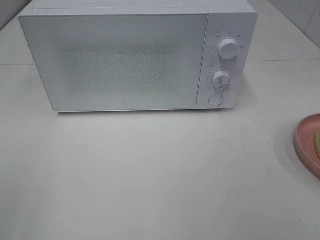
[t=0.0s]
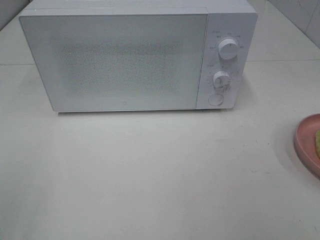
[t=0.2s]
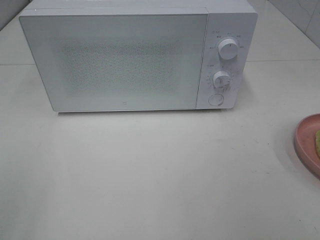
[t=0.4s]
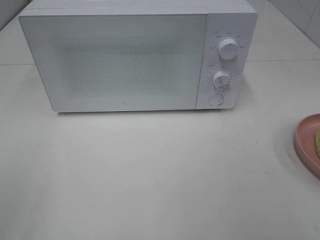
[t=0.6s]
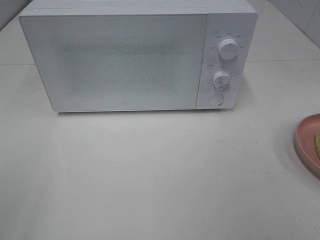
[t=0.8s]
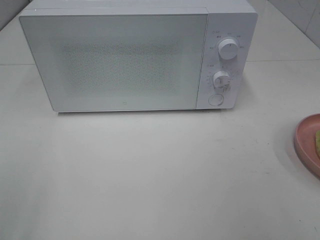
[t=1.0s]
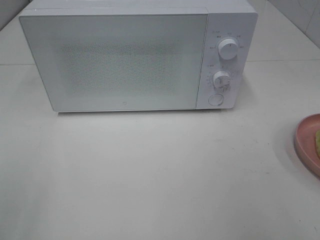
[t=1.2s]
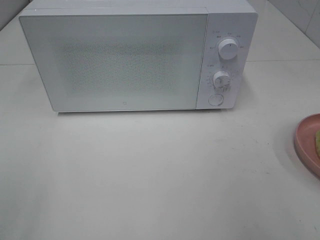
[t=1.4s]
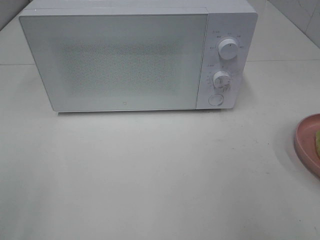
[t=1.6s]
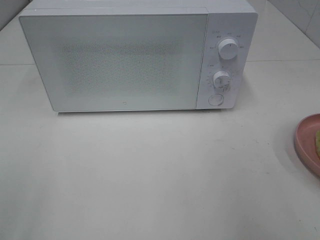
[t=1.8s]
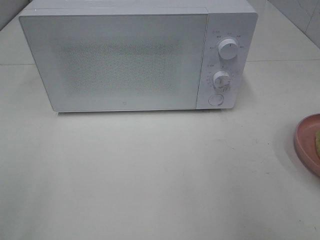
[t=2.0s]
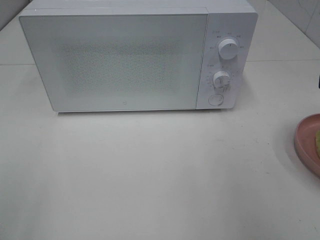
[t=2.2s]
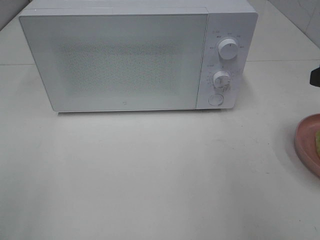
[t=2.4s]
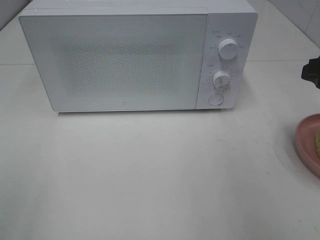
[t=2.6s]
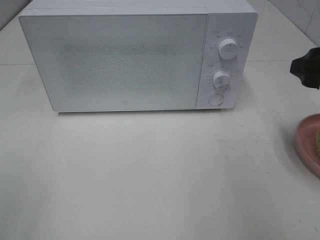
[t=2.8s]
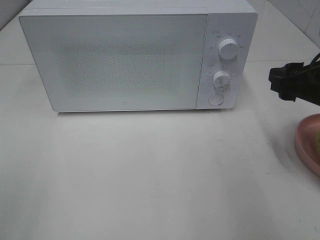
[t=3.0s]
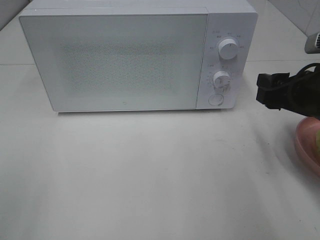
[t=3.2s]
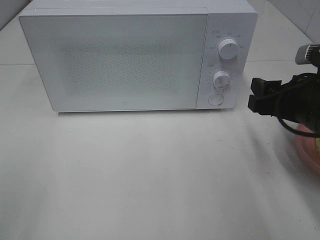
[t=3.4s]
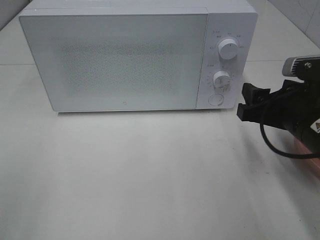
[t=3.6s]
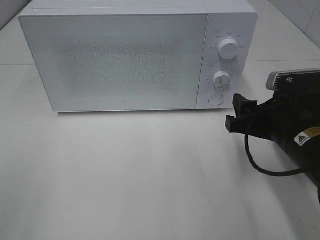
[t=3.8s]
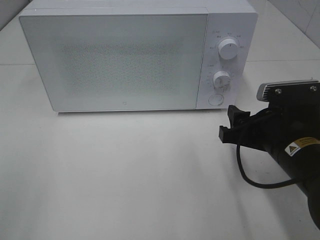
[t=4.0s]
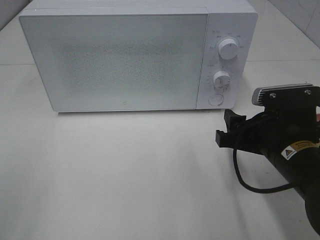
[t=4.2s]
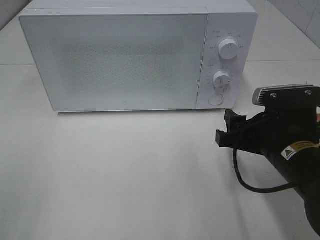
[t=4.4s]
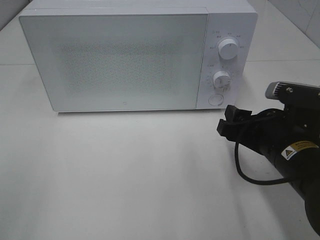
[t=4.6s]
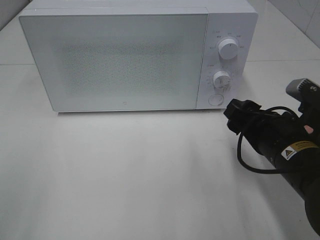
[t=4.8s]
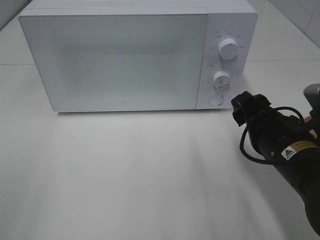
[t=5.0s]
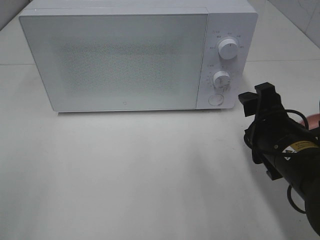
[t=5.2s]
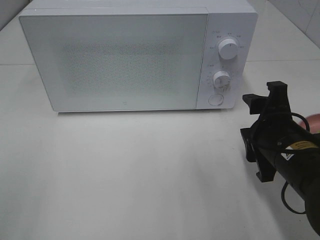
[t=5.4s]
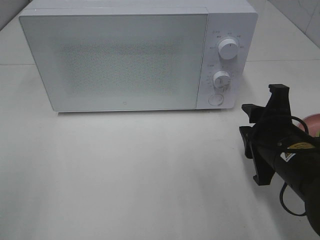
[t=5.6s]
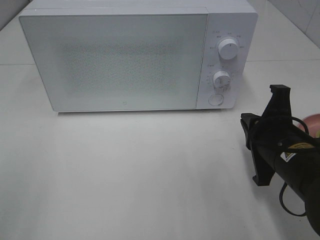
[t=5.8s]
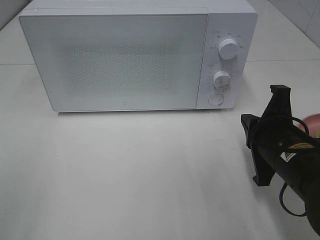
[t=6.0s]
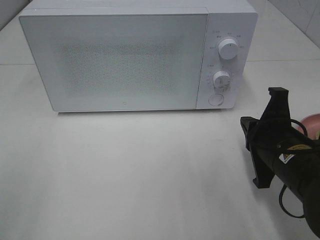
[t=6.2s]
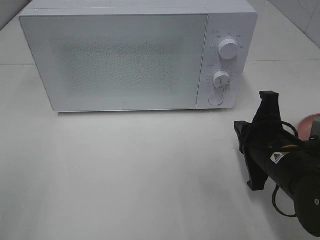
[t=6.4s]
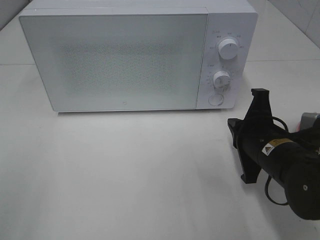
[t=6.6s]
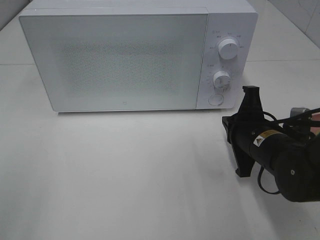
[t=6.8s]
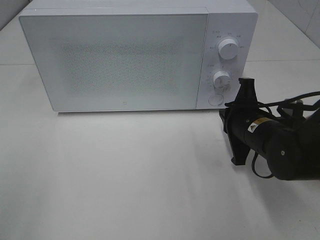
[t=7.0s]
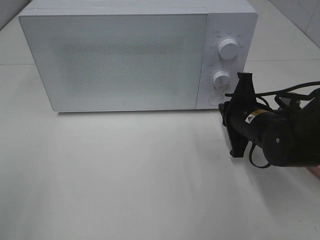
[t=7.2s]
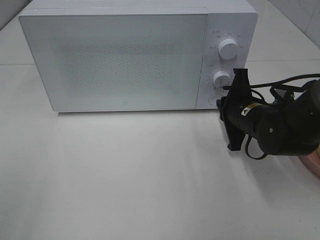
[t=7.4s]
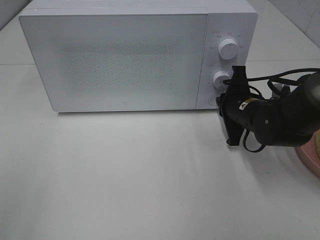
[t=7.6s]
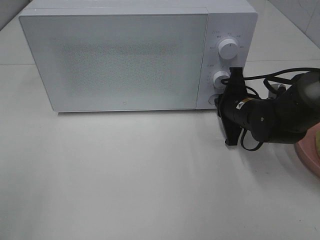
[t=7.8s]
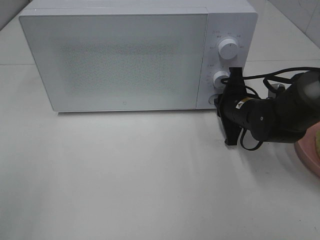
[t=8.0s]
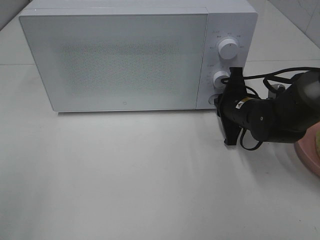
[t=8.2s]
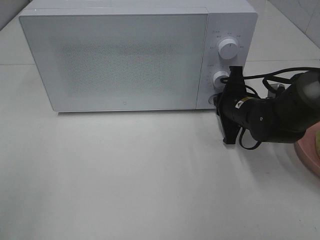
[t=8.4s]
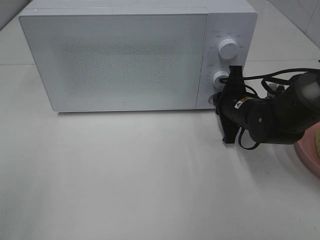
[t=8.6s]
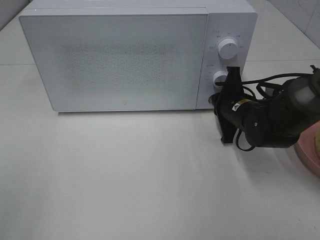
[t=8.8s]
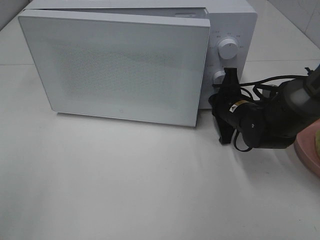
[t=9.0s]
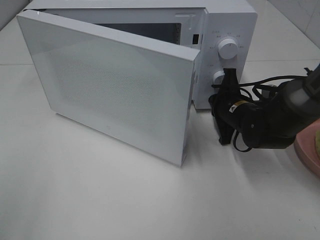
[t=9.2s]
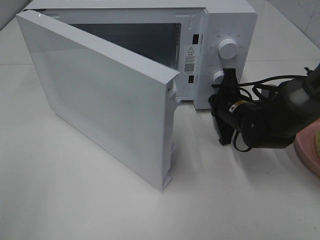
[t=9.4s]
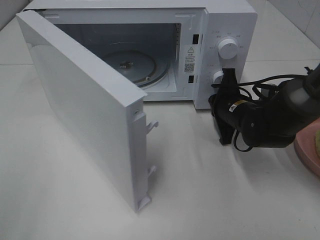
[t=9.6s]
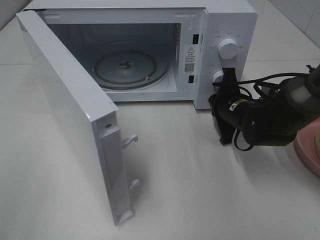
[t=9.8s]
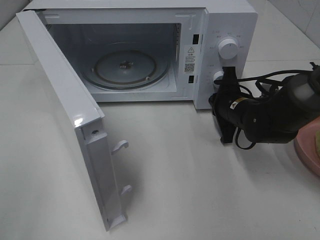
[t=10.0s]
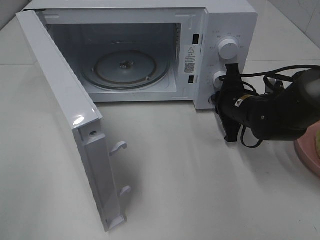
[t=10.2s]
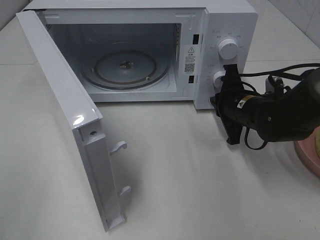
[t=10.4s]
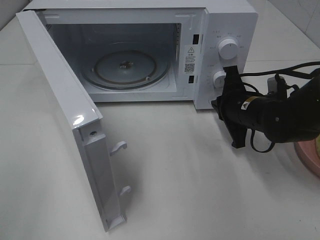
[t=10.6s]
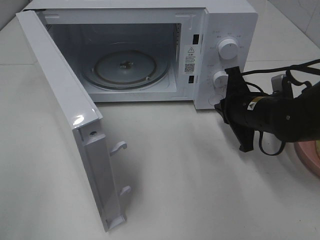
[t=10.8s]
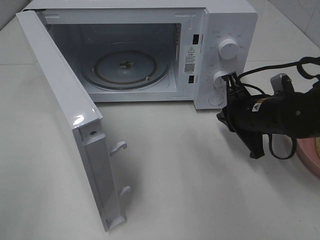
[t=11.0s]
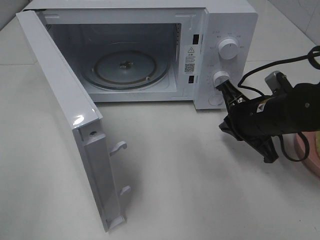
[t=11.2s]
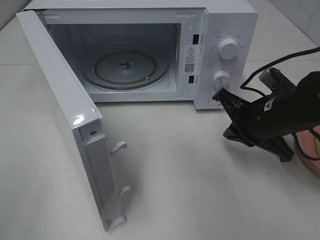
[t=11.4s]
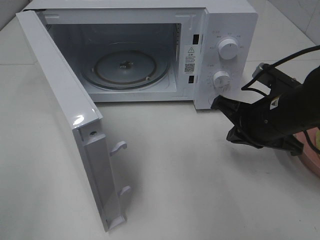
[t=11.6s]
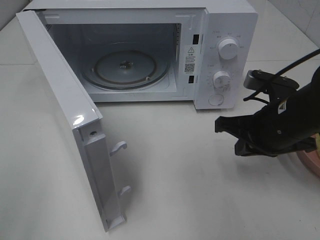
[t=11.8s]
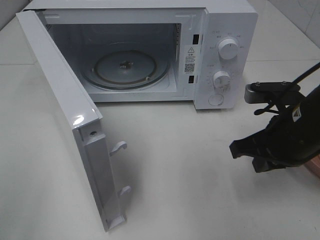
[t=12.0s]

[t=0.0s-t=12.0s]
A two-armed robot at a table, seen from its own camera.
Task of the whole recording: Heat Sandwich.
Step, t=0.0s to t=10.6s: Right hand: press the switch.
t=1.6s to t=3.0s: The right gripper is displaced forward and downward by about 15 cm.
t=3.0s to t=4.4s: The right gripper goes approximately 10 cm downward and to the left.
t=4.4s to t=6.0s: The right gripper closes.
t=6.0s to t=7.6s: The right gripper heads forward, covering some 15 cm.
t=7.6s to t=9.0s: The grippers stay close to where they were, moving slightly.
t=10.4s to t=12.0s: The right gripper is displaced backward and upward by approximately 10 cm.

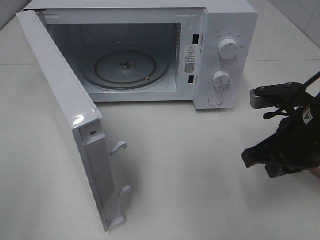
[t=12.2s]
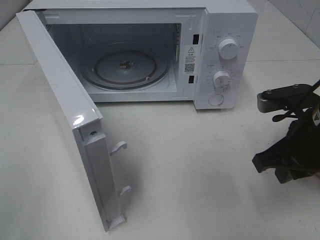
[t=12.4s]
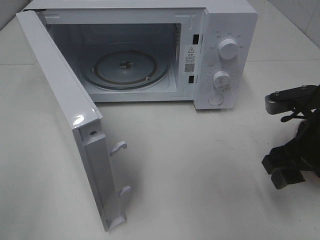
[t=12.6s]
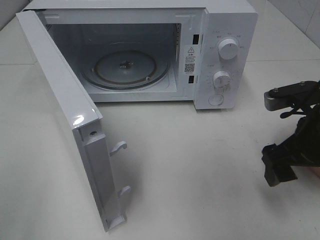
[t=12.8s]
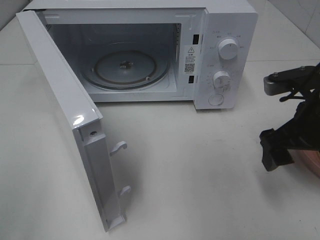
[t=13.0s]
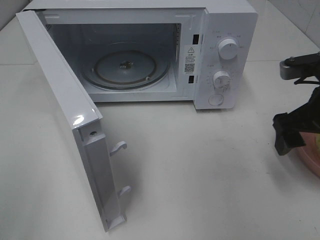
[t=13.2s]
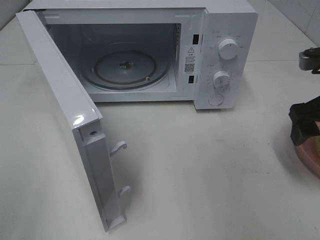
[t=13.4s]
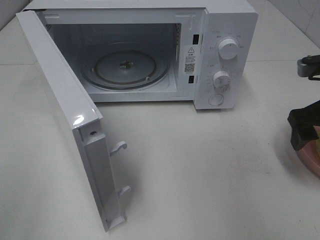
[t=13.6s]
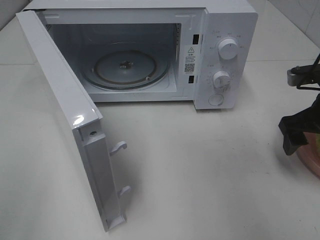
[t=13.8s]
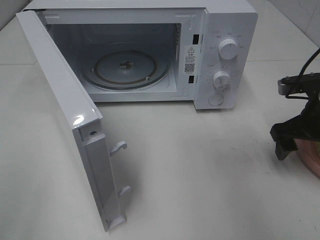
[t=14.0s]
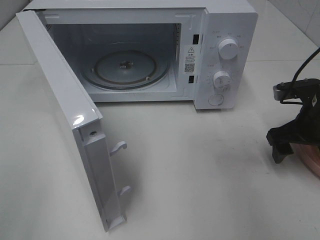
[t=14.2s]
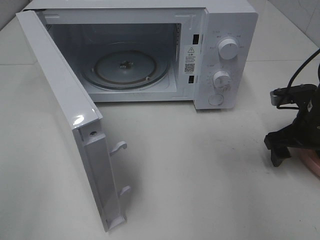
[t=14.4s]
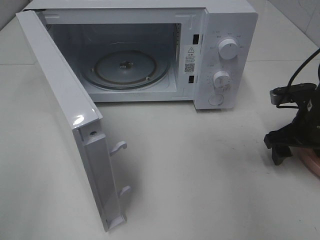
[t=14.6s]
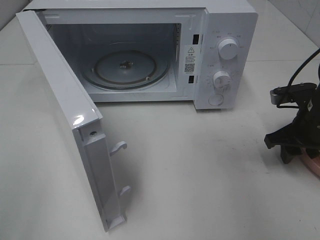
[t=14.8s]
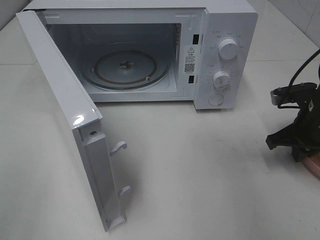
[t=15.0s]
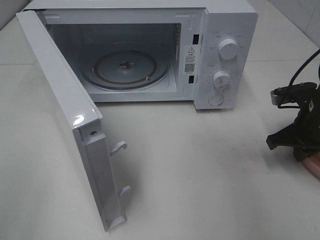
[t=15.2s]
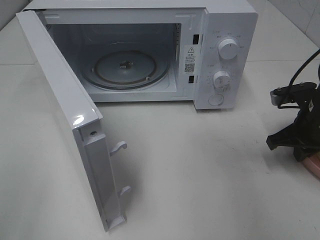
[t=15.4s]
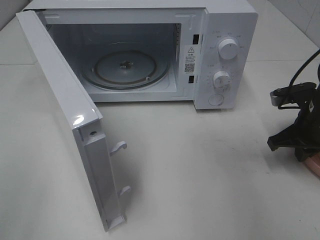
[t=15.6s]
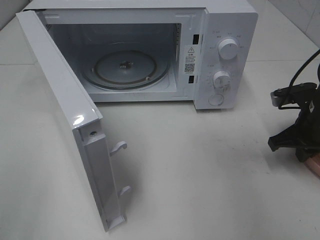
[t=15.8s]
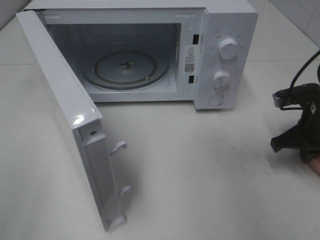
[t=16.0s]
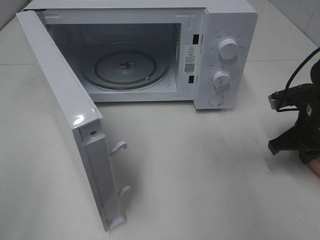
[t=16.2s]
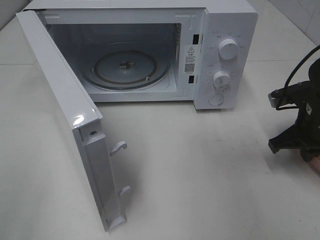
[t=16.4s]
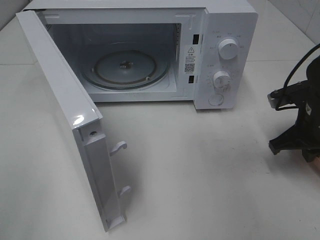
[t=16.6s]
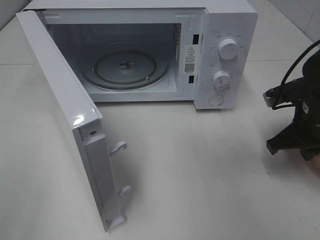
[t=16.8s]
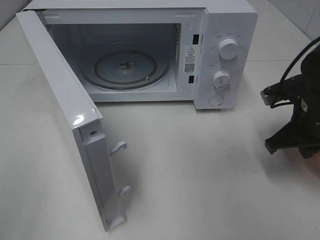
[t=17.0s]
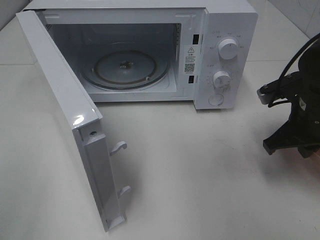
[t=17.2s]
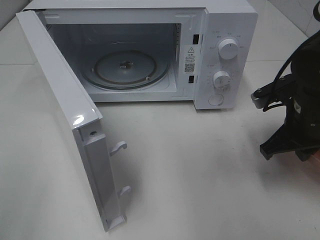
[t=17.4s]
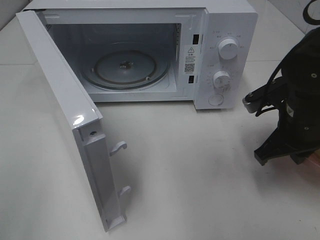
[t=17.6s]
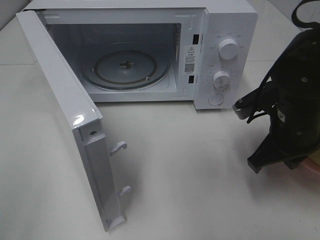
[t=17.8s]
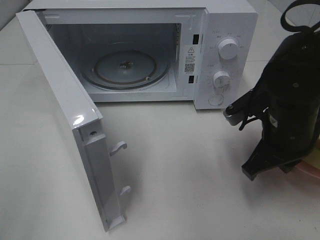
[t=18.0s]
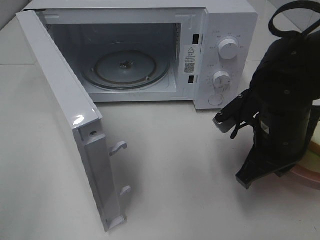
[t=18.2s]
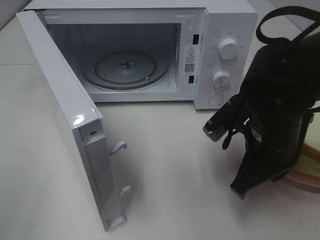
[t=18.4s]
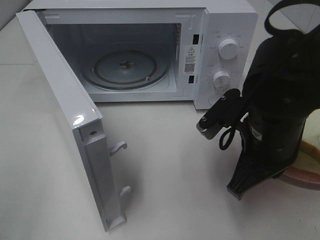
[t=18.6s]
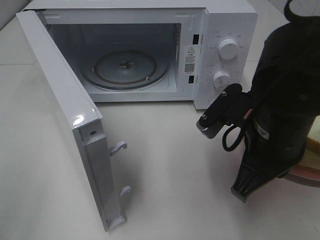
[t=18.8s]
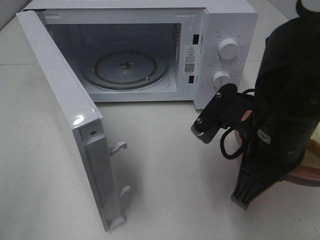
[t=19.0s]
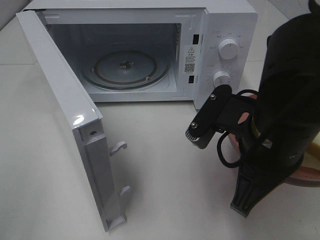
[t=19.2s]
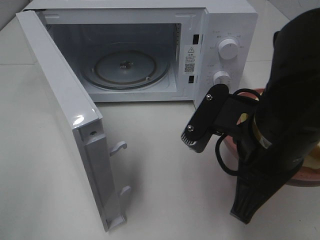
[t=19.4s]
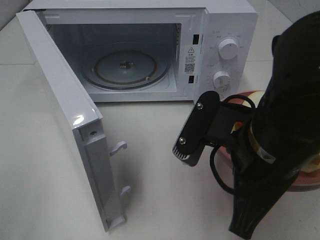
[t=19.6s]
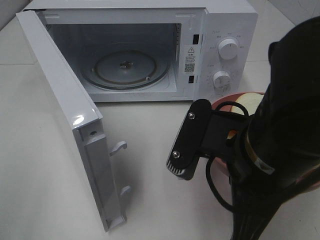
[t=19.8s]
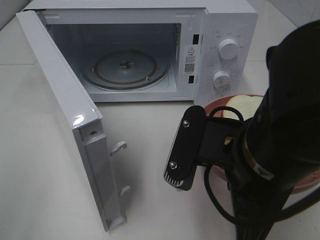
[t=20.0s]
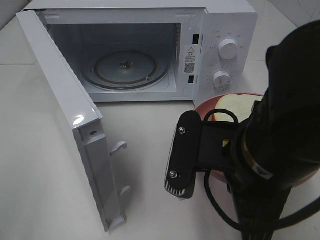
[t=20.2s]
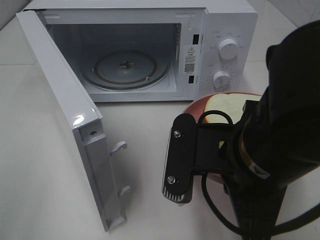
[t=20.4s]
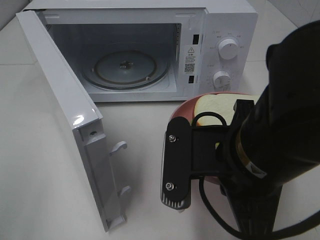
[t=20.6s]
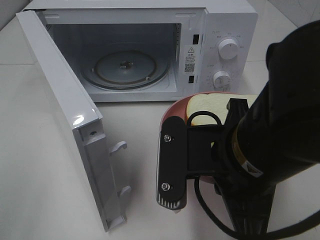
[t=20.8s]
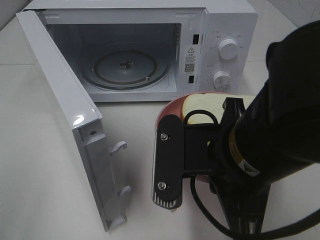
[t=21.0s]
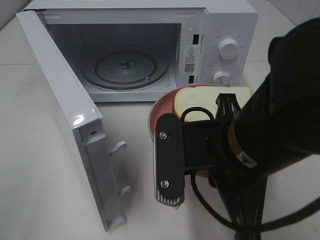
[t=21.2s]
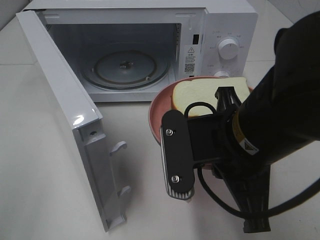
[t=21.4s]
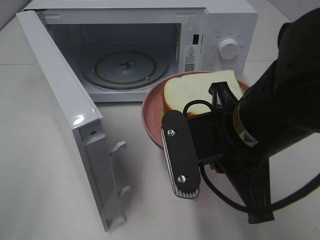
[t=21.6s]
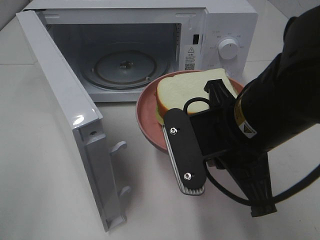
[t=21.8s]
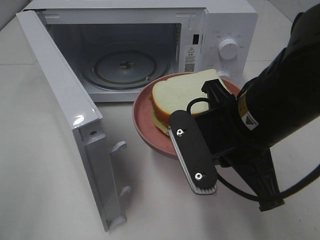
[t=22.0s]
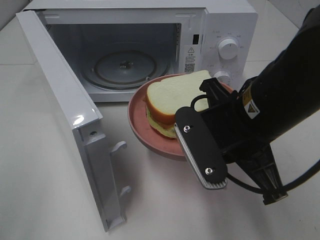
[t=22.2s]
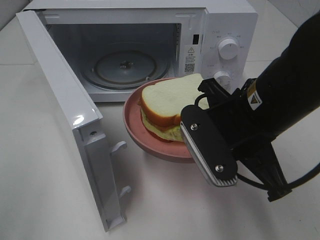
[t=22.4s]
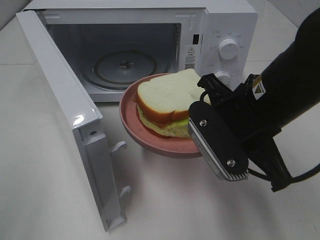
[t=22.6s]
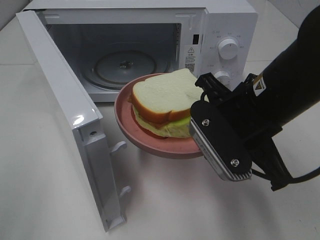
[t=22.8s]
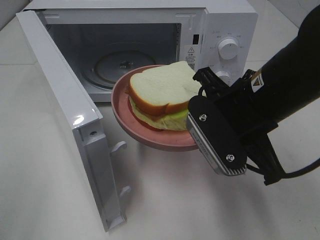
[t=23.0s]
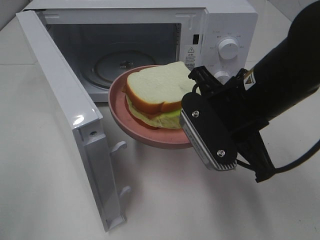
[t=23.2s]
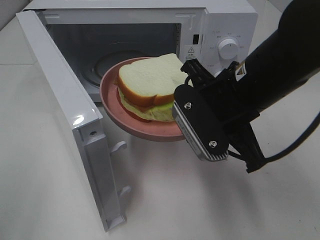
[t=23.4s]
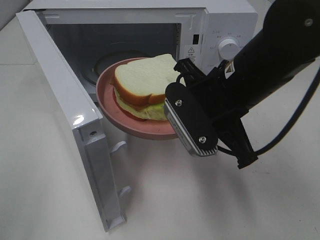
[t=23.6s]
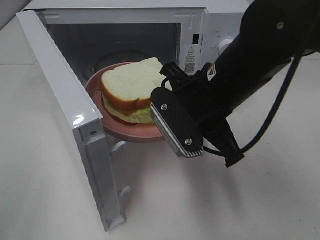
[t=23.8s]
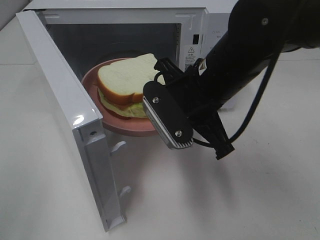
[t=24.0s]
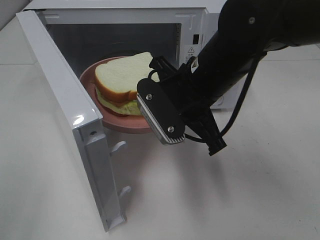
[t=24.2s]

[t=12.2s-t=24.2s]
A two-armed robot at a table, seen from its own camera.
Task of the whole recording: Heat Sandwich.
Step, t=12.2s to t=15.8s: Right hand: grab the plate with the sandwich.
t=12.2s to t=13.8s: The right gripper is displaced to the right and forward by about 10 cm, and opens.
t=13.8s to t=15.2s: The right gripper travels downward by roughly 5 cm, and closes up.
t=15.2s to t=16.6s: There are only small adjustments of the grippers.
t=16.6s to t=18.2s: The right gripper travels to the left and backward by some 10 cm.
t=18.2s to t=19.8s: The right gripper shifts about 15 cm backward, to the left and upward.
t=21.2s to t=22.6s: The right gripper travels forward by roughly 5 cm.
t=22.6s to t=24.2s: The right gripper goes approximately 10 cm forward and to the left.
